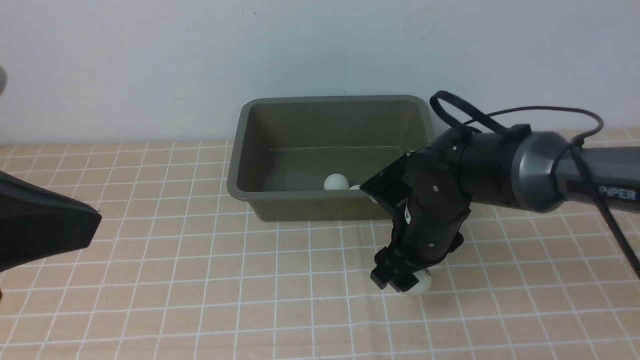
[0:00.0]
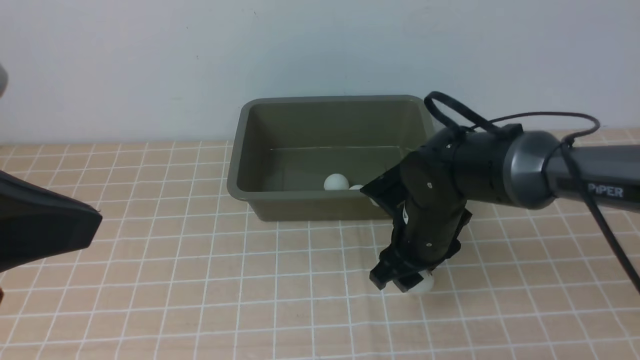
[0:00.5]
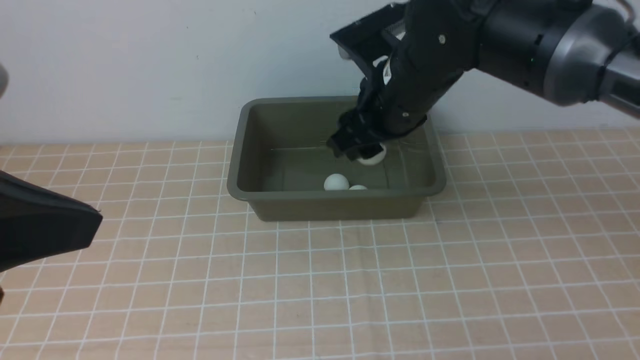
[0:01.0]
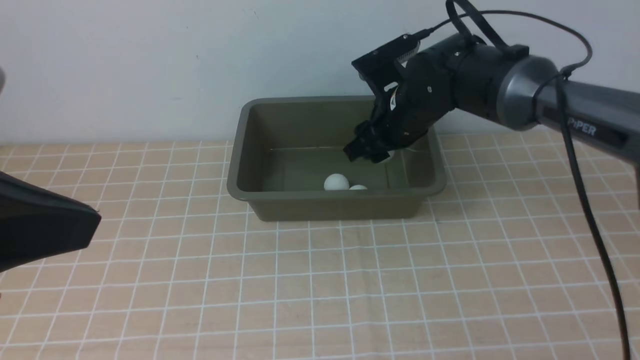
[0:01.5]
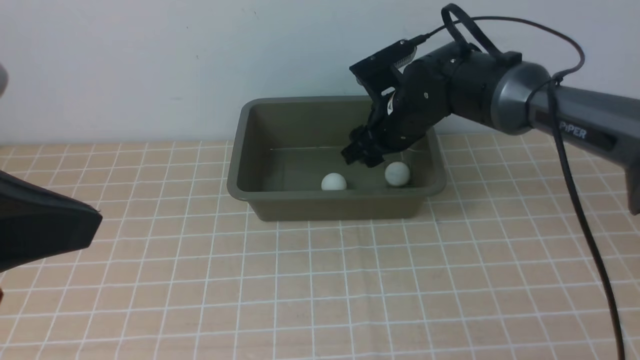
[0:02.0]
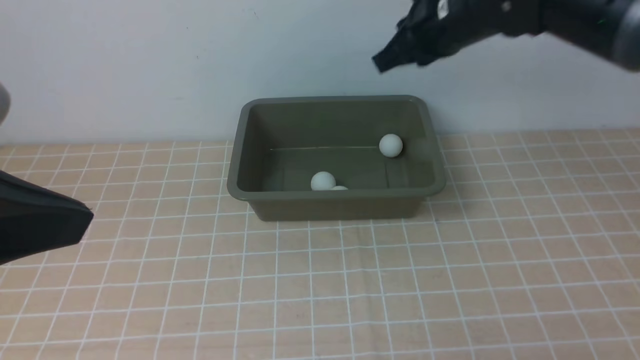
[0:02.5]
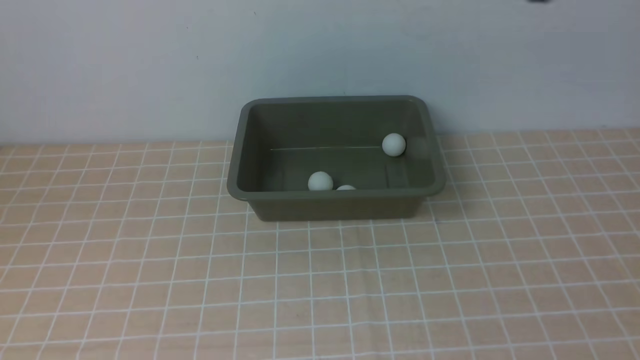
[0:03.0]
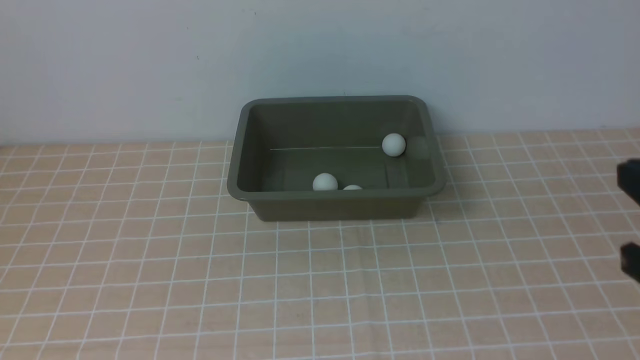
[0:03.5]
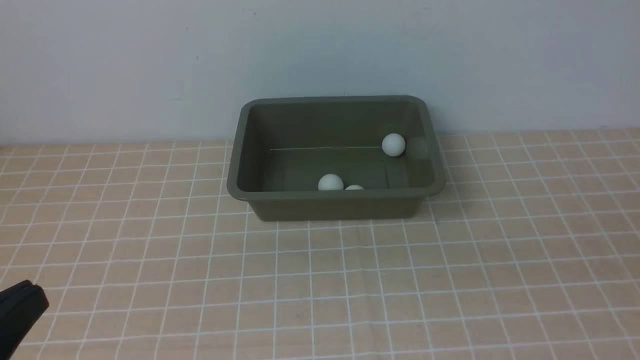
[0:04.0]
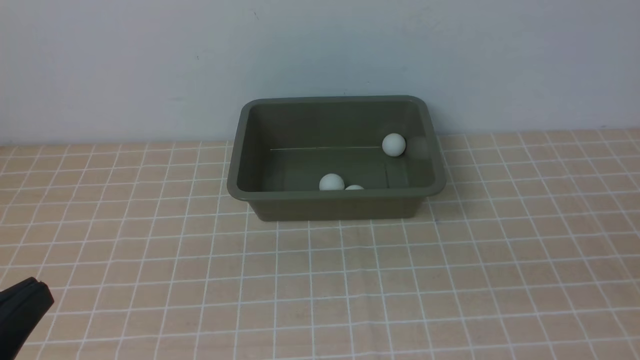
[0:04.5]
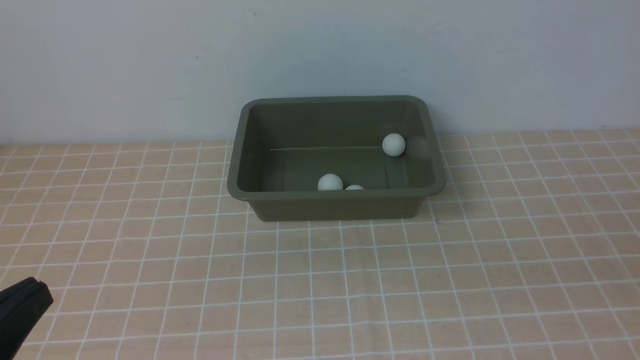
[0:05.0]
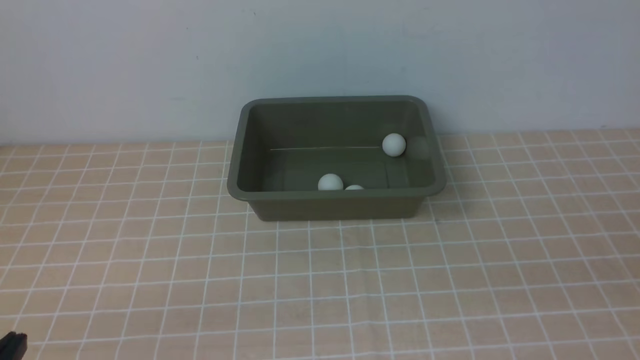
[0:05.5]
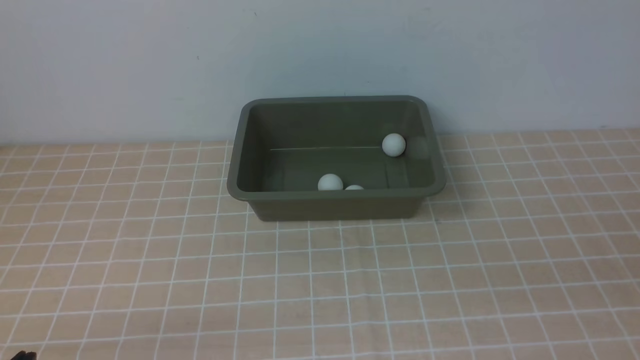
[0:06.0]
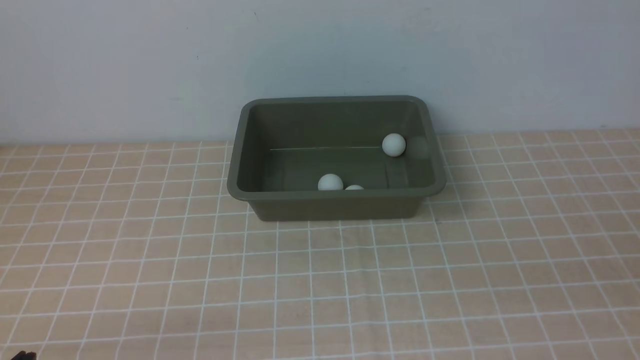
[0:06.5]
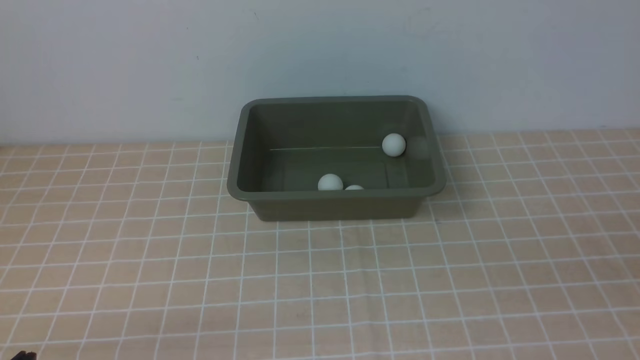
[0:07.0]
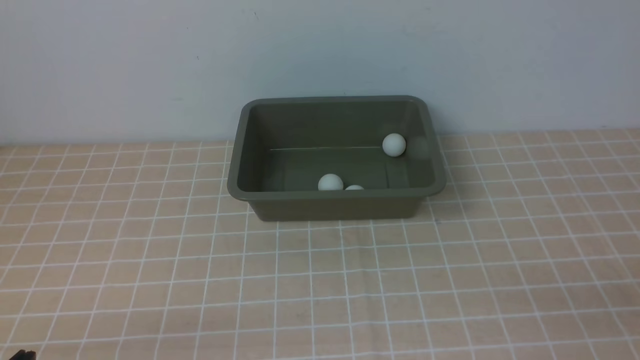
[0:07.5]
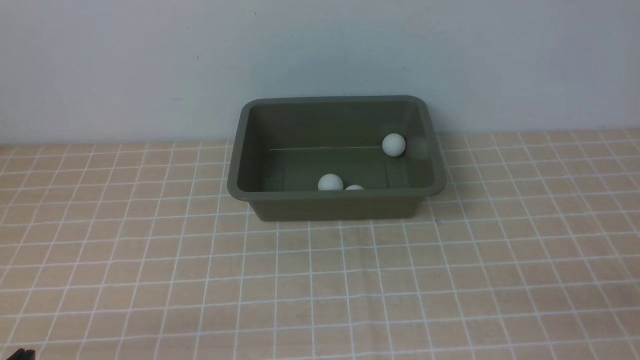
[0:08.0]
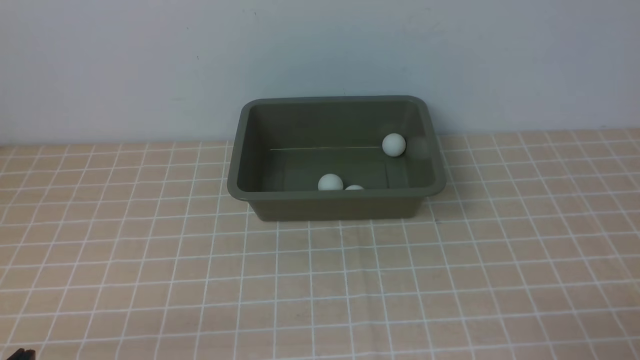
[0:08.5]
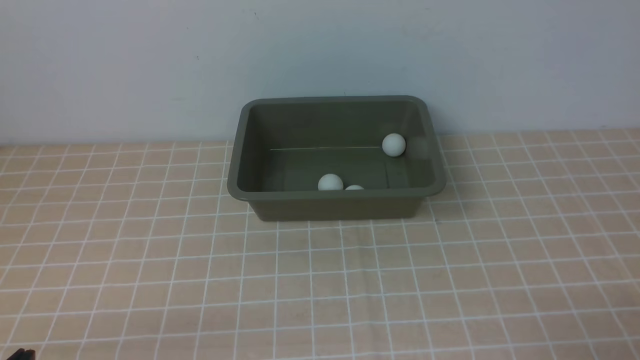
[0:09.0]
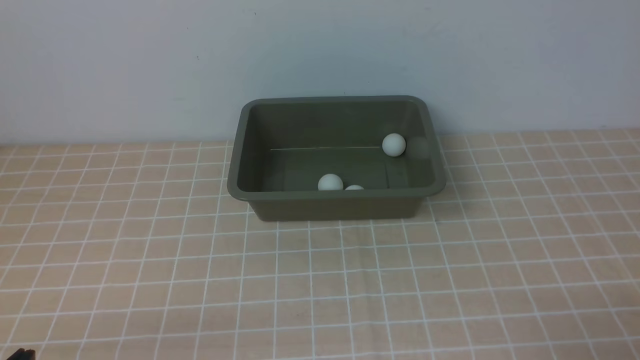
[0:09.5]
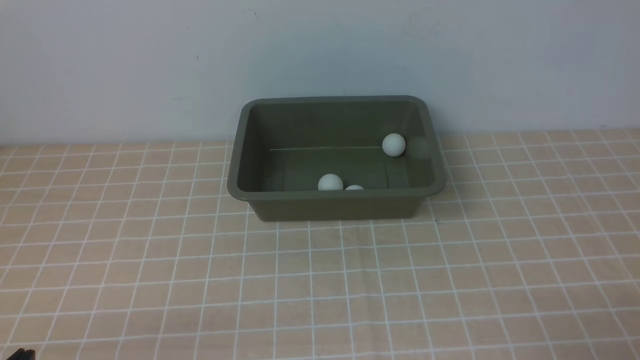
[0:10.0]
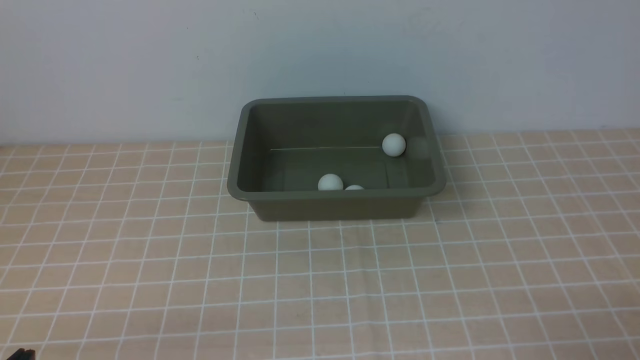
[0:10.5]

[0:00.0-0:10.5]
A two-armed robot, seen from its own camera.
Step, 0:01.0 to 0:02.0: use the right arm to put the table tennis ball into the box.
0:00.0 to 0:02.0: The right gripper heads forward and upward, covering about 10 cm.
0:02.0 to 0:04.0: The right gripper heads backward and to the right, covering about 40 cm, and closes its fingers, while the left gripper moves downward and backward, roughly 15 cm.
0:04.0 to 0:06.5: The left gripper shifts roughly 15 cm downward.
